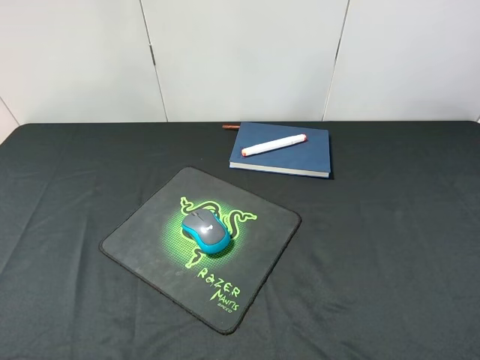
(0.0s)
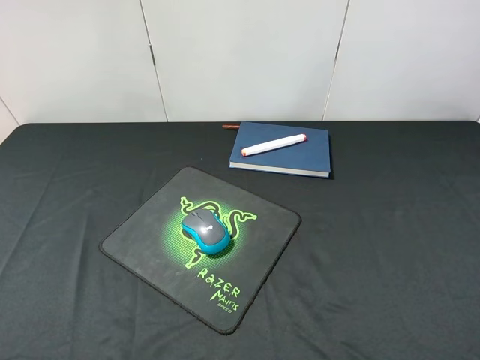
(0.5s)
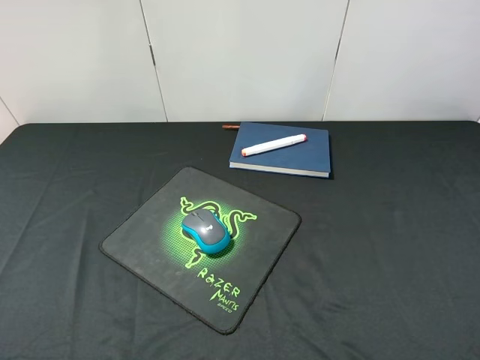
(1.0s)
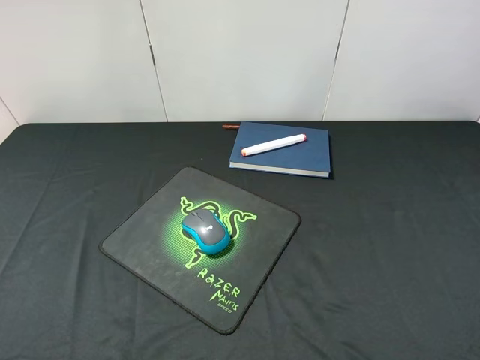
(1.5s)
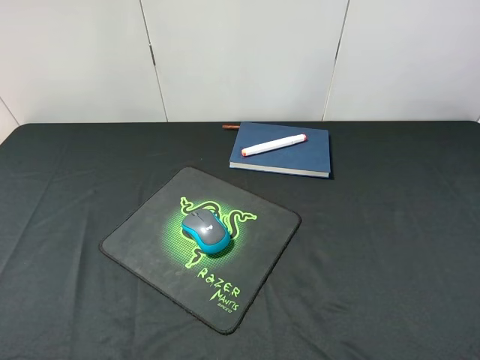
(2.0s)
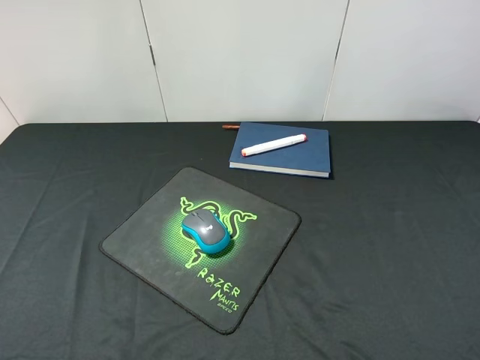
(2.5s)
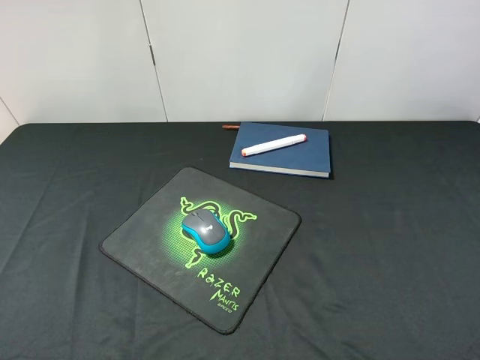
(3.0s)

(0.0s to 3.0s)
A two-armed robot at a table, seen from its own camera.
1.5s - 3.0s: Both grippers stay put.

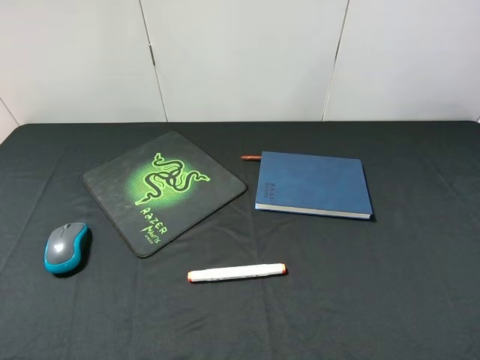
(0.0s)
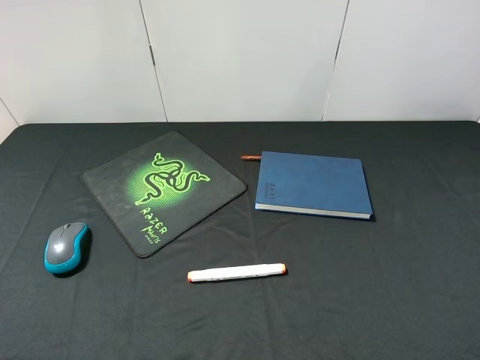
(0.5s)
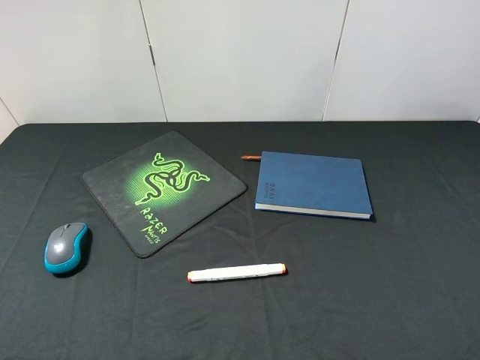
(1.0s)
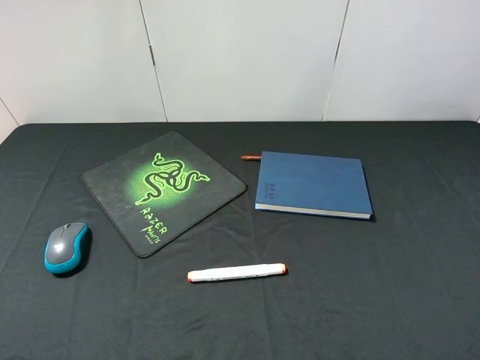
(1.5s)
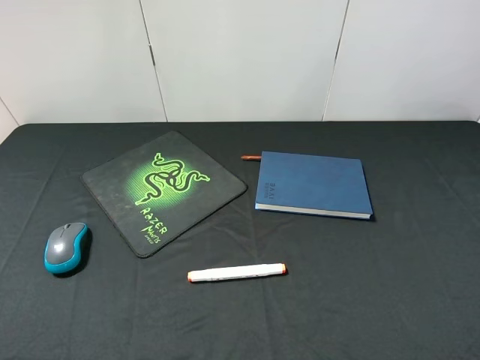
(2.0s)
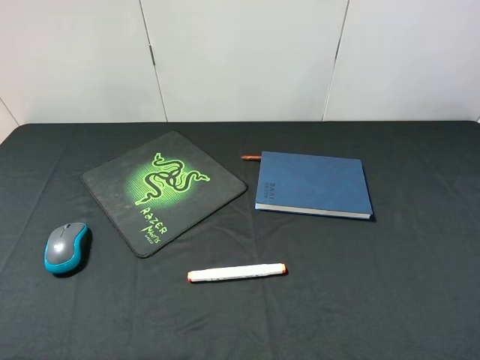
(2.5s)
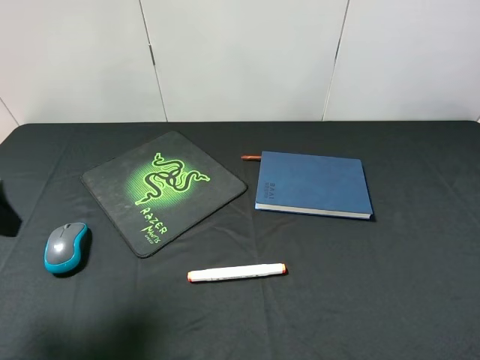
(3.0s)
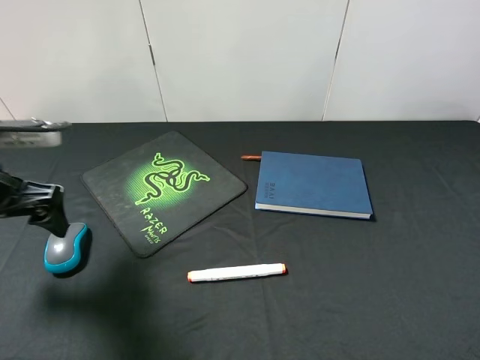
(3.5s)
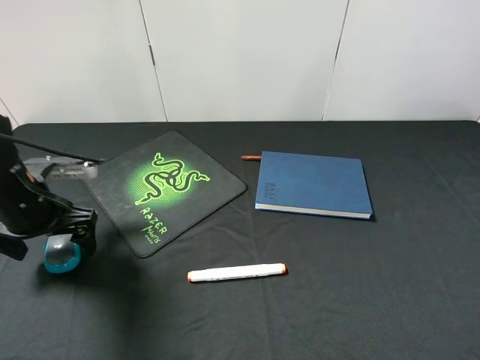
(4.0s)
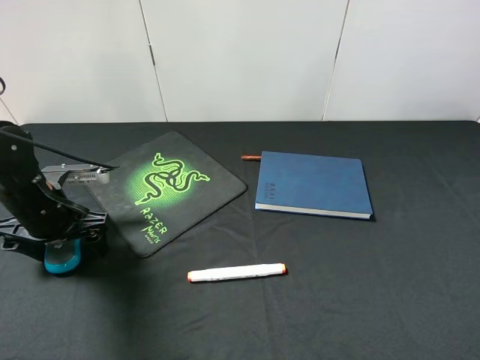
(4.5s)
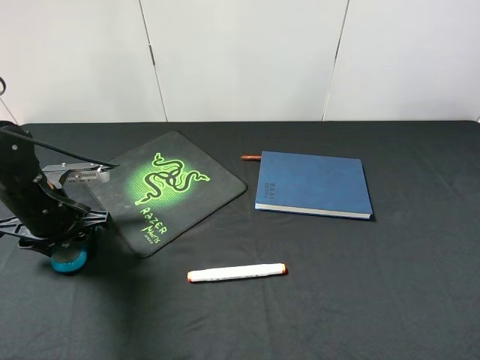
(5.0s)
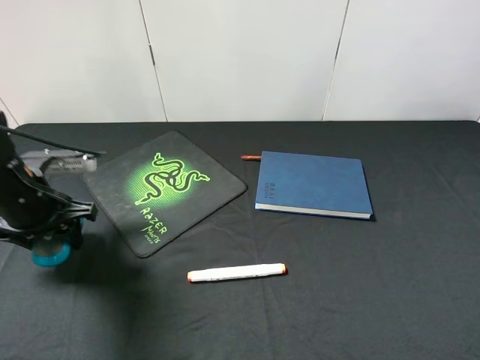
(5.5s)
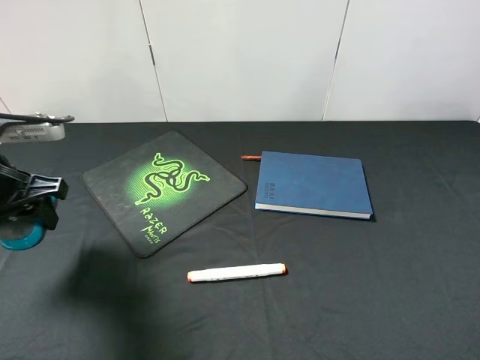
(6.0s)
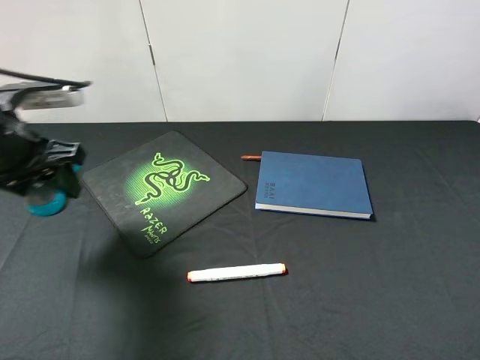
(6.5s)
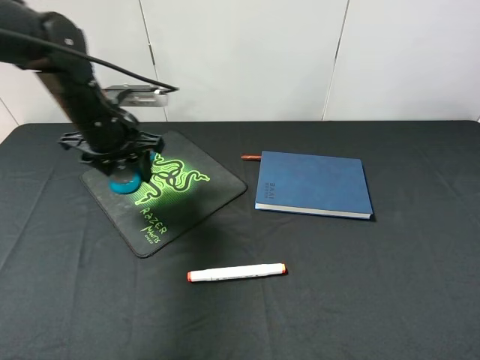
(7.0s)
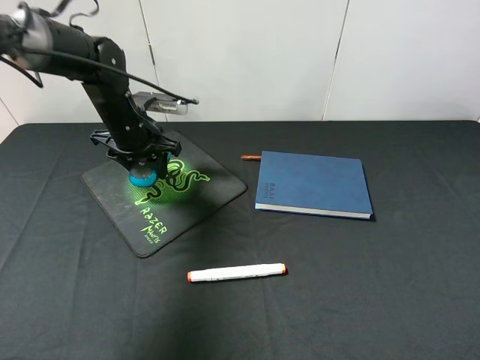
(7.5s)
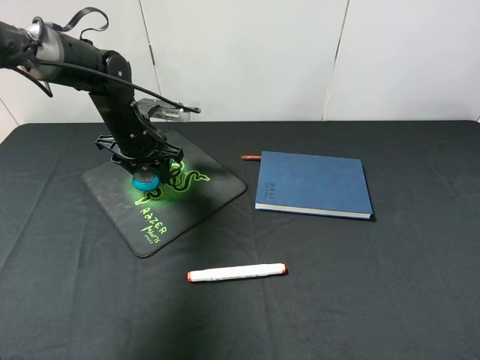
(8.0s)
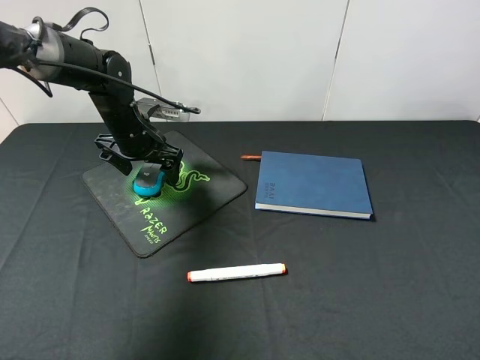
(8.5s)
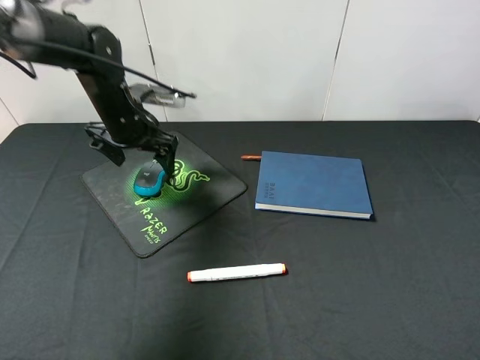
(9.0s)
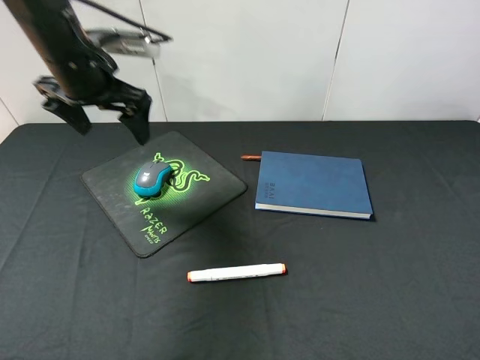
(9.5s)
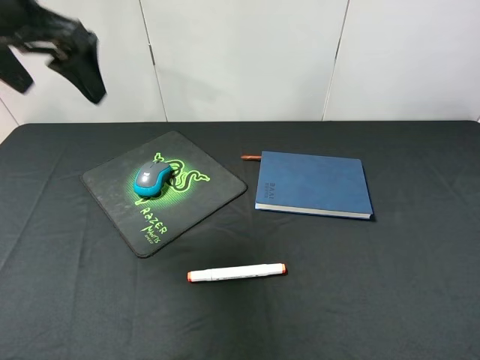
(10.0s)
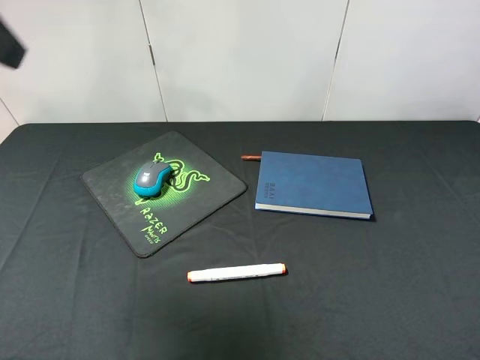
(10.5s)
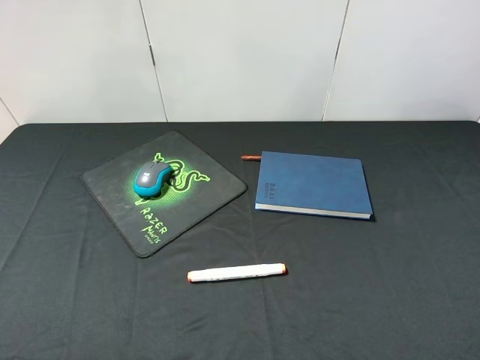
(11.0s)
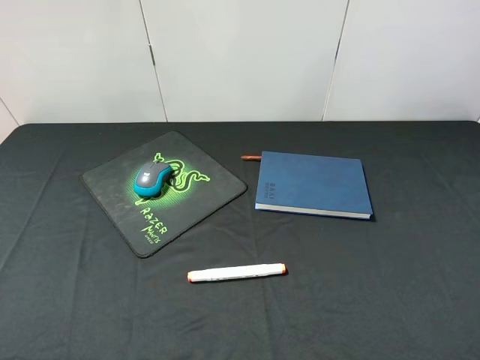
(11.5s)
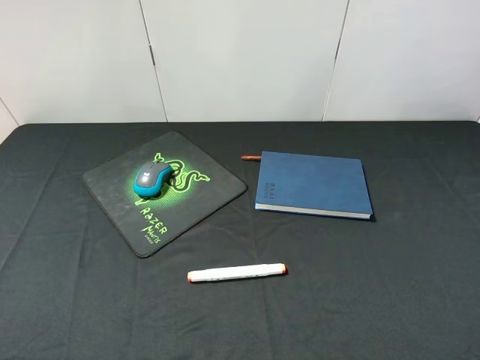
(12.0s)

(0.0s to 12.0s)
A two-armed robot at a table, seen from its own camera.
2.0s - 4.0s: The left gripper goes approximately 30 cm forward and downward.
4.0s - 6.0s: The left gripper travels upward by roughly 5 cm, and closes.
6.0s - 8.0s: The left gripper goes about 20 cm forward, to the right and downward.
8.0s - 10.0s: The left gripper travels upward and backward by some 25 cm, and opens its fingers.
10.0s - 12.0s: The left gripper goes roughly 25 cm backward.

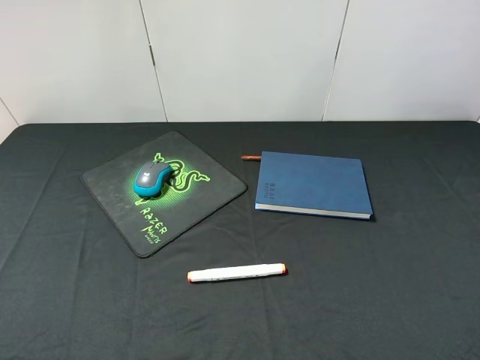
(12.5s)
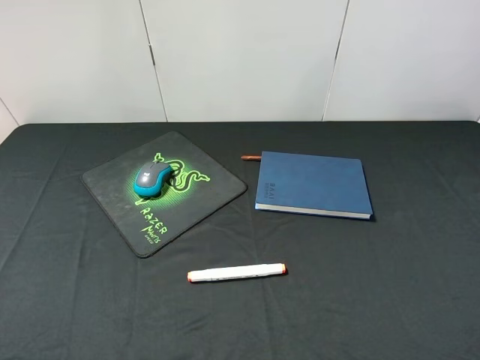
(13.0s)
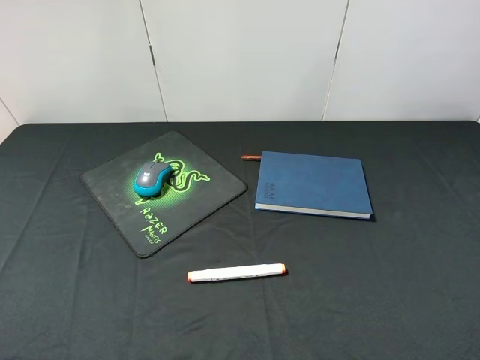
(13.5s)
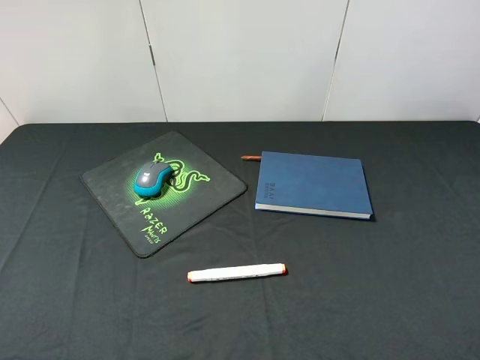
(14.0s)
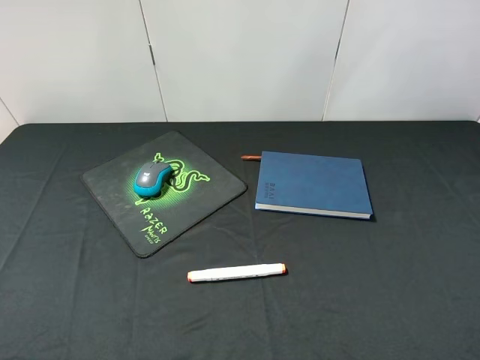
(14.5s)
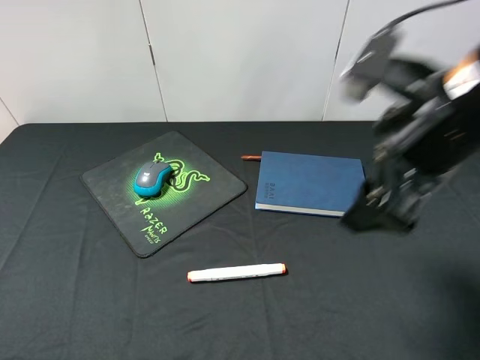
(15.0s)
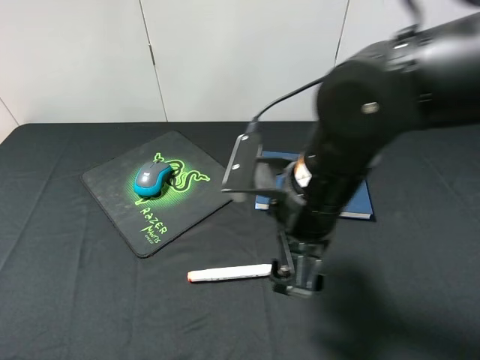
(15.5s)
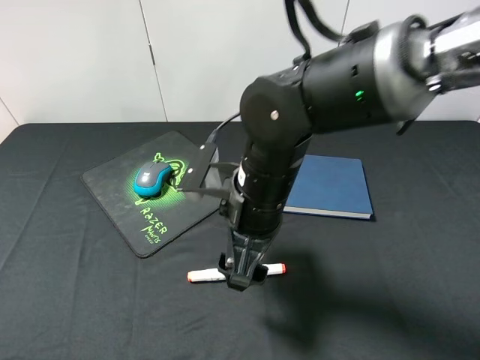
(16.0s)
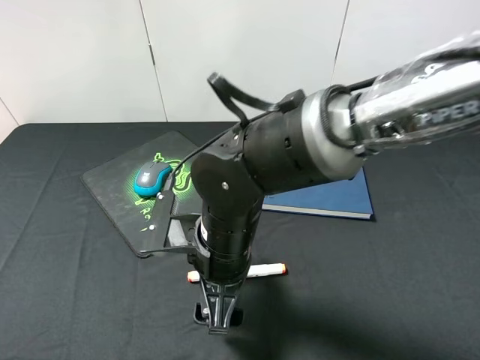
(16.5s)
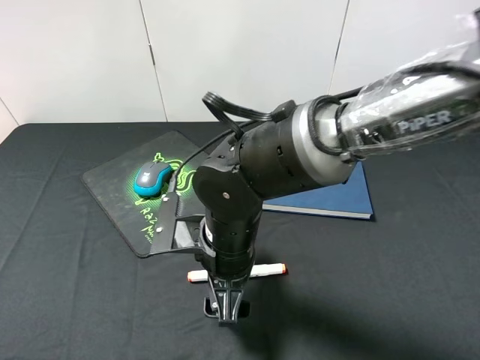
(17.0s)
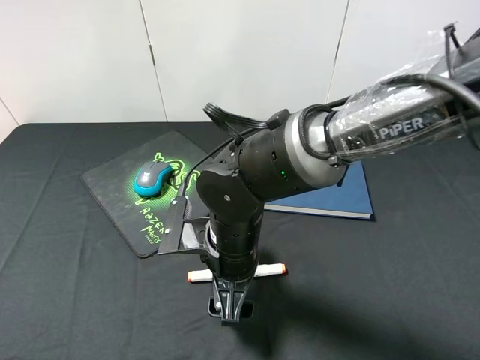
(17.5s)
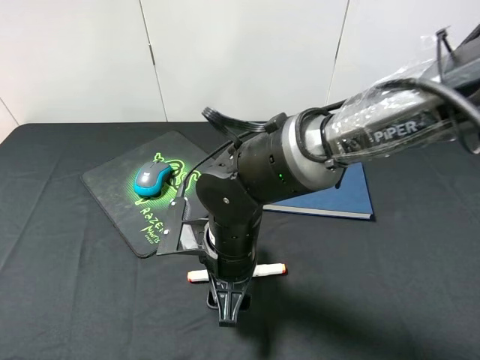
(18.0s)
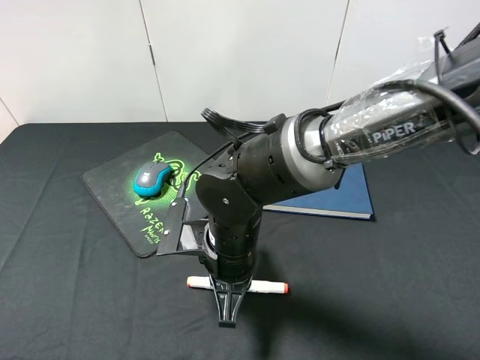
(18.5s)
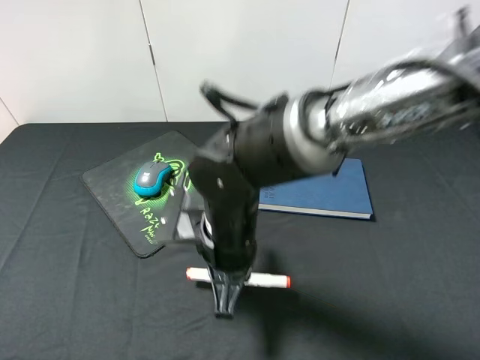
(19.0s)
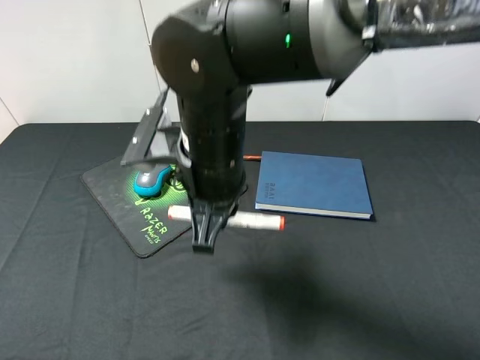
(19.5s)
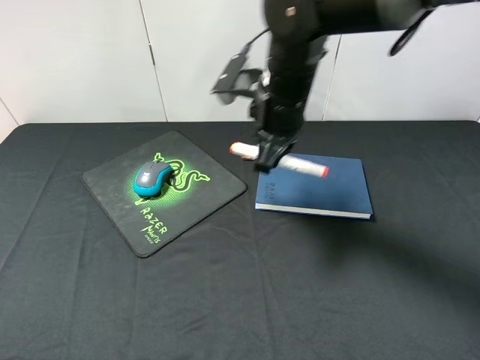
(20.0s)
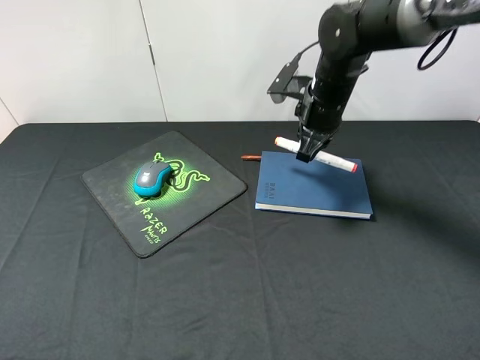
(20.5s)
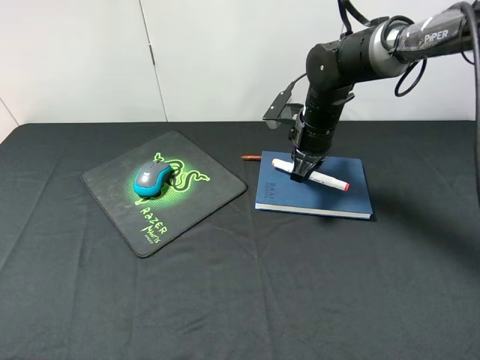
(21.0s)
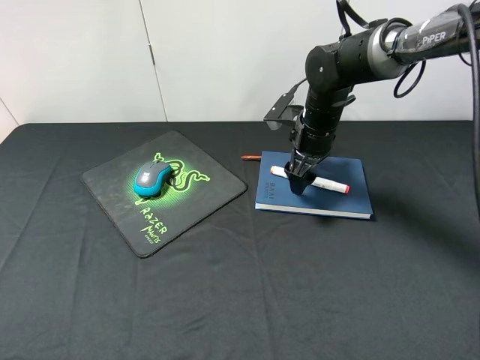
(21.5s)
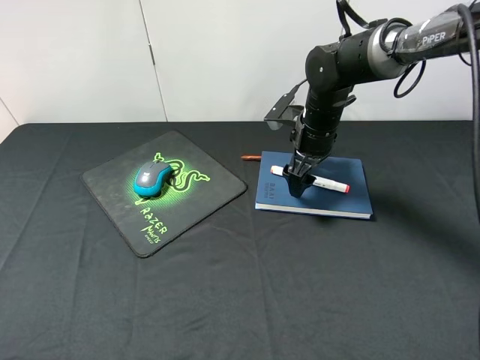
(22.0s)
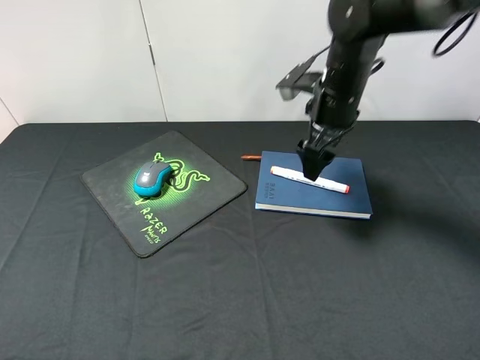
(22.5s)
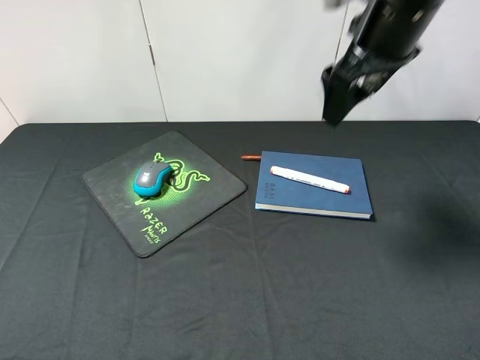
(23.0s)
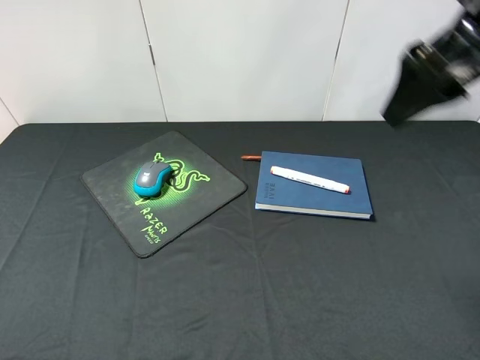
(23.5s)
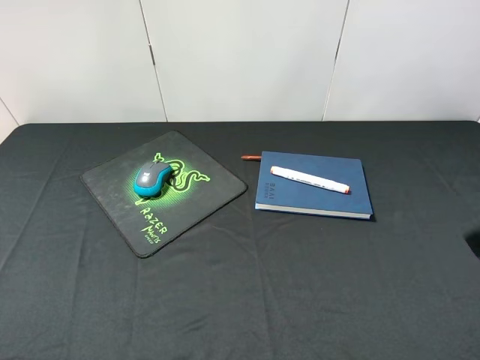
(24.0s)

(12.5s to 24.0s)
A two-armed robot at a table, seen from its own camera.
Step, 12.5s - 19.5s: Pick up the marker pen with right gripper.
Step, 20.0s - 22.0s: Place the marker pen on the notebook with right gripper.
14.5s - 16.5s: The right gripper heads to the left and downward, covering about 35 cm.
16.5s - 18.5s: The right gripper closes its fingers.
18.5s - 20.0s: The right gripper shifts about 15 cm upward and forward.
20.0s - 22.0s: The right gripper is displaced downward, forward and to the right by some 15 cm, and opens its fingers.
22.0s - 24.0s: The right gripper goes some 35 cm backward, upward and to the right.
